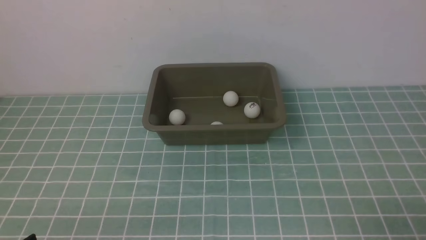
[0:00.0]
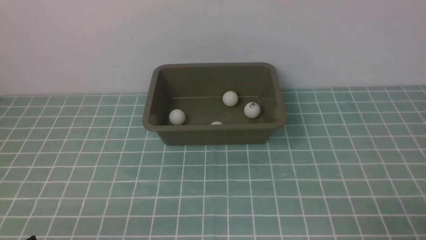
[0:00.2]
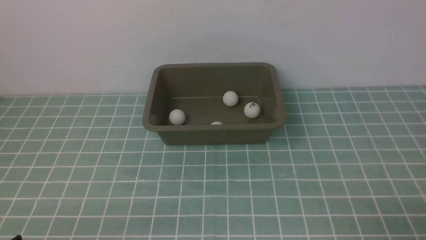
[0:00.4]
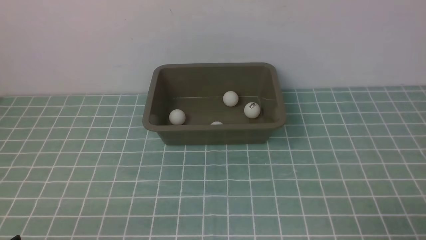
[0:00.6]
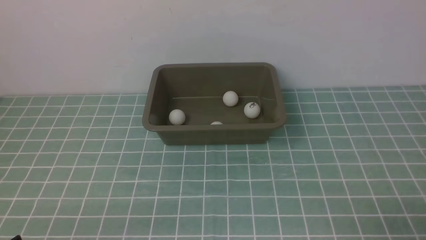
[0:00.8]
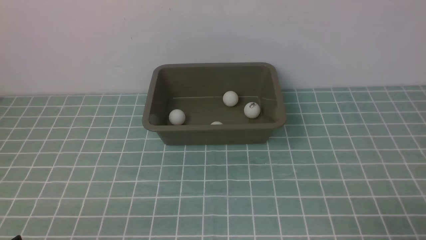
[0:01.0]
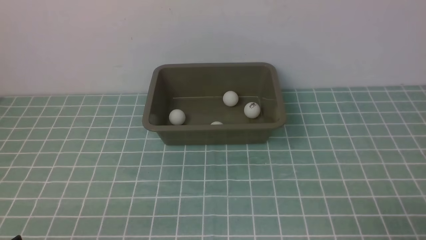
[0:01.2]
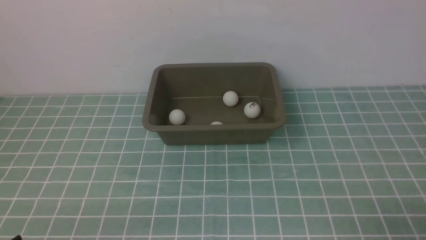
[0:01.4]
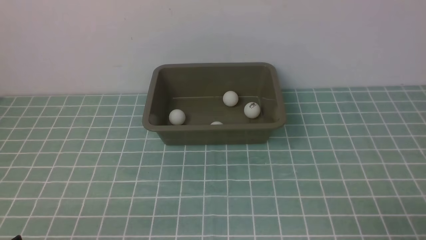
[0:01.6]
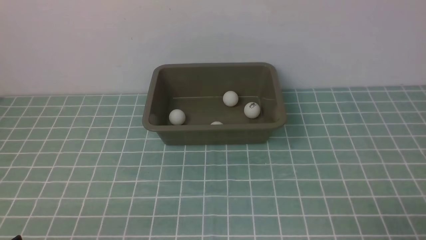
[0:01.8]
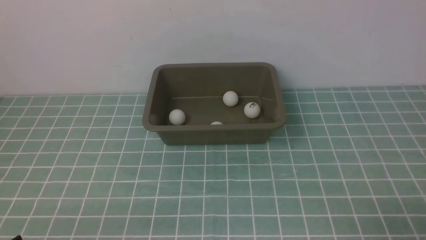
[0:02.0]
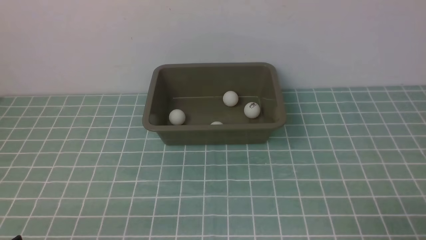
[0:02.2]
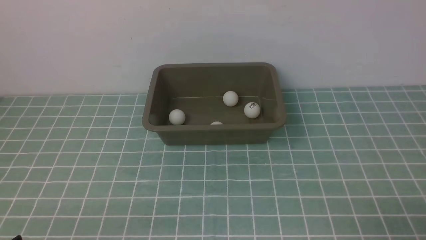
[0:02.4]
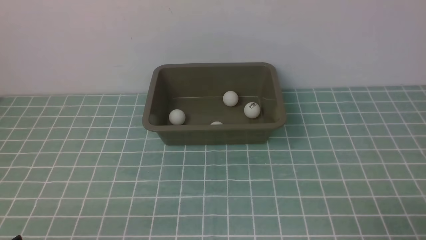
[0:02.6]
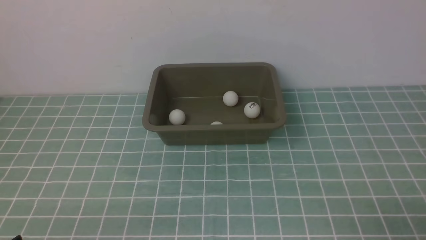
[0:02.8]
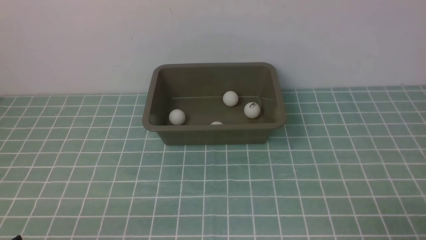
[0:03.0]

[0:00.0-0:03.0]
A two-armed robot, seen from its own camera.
0:00.0 to 0:03.0: Neither gripper changes place.

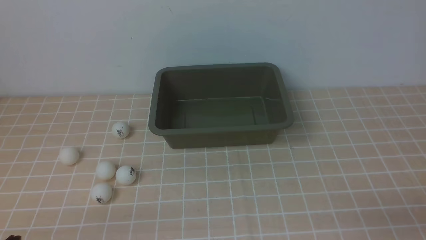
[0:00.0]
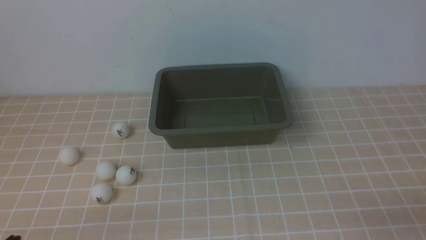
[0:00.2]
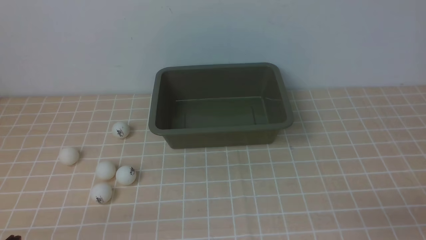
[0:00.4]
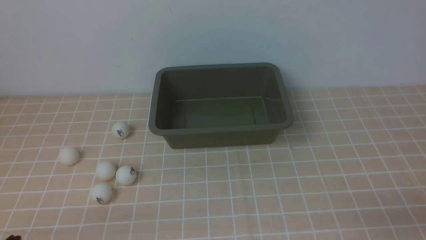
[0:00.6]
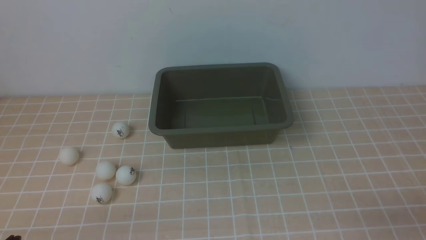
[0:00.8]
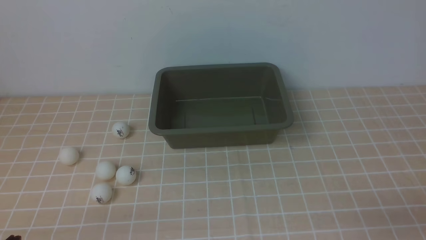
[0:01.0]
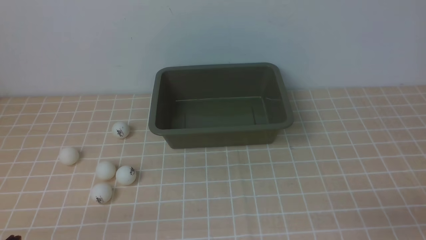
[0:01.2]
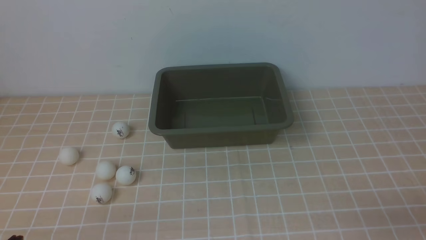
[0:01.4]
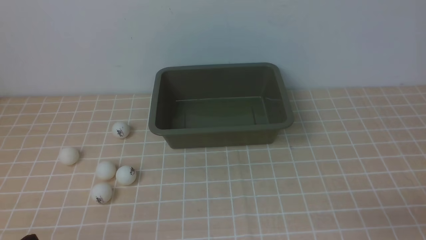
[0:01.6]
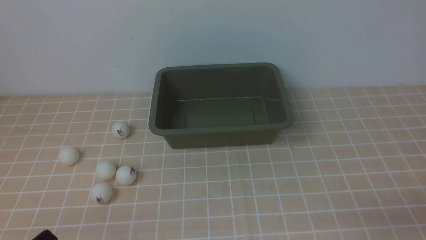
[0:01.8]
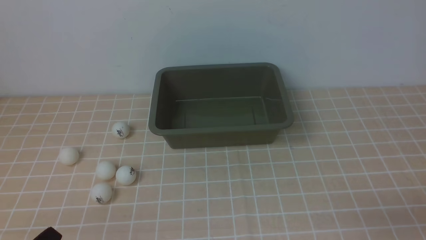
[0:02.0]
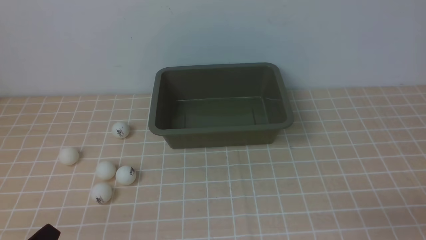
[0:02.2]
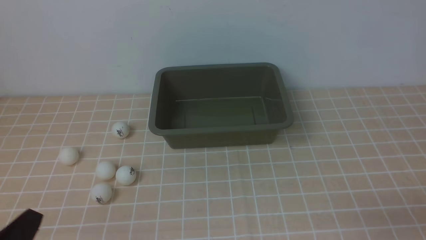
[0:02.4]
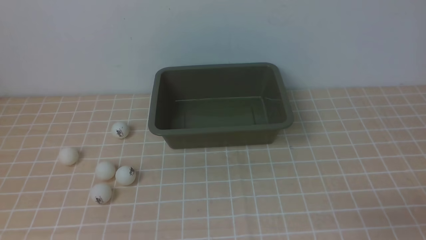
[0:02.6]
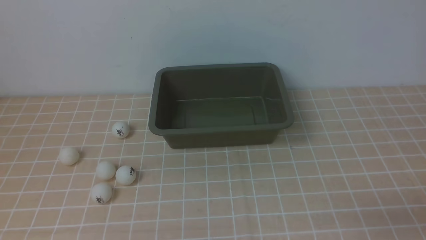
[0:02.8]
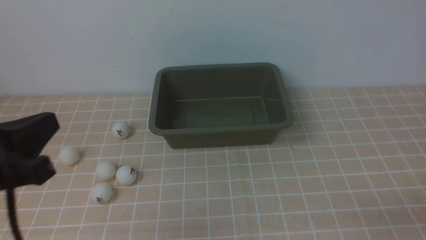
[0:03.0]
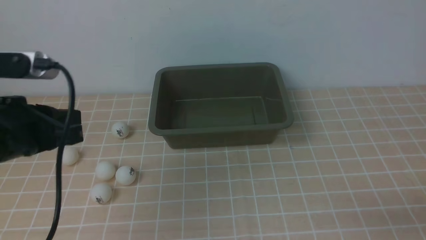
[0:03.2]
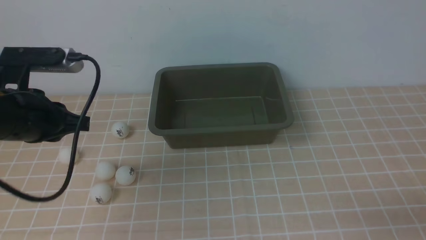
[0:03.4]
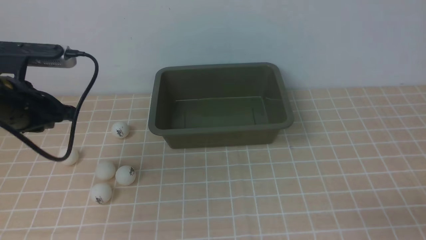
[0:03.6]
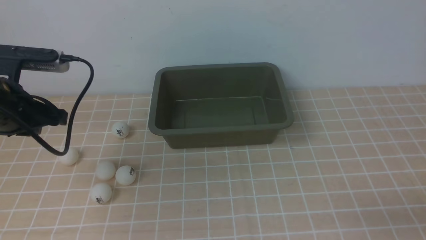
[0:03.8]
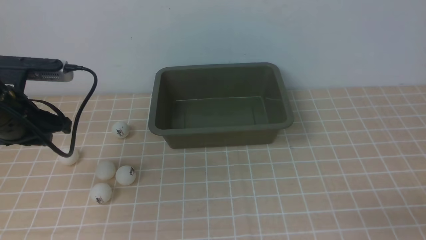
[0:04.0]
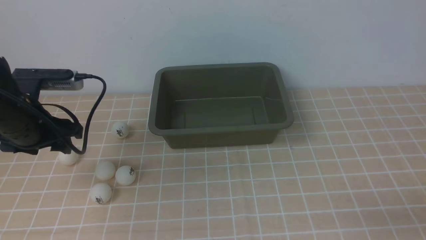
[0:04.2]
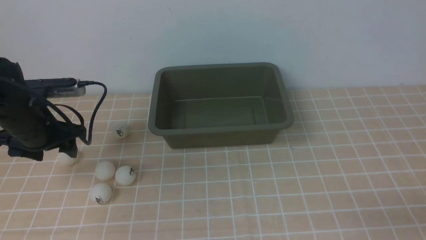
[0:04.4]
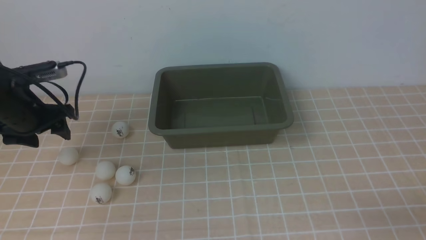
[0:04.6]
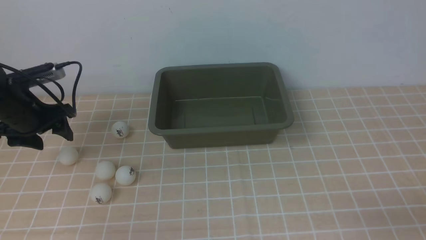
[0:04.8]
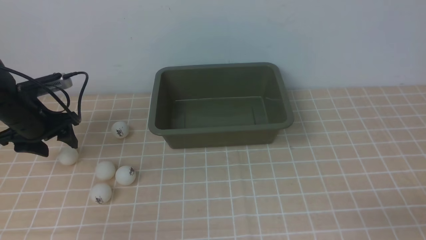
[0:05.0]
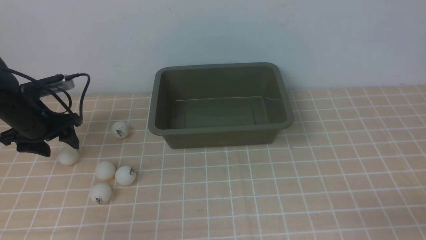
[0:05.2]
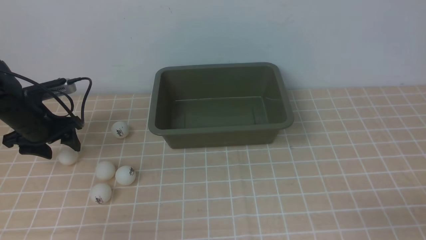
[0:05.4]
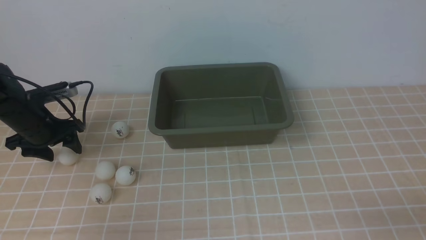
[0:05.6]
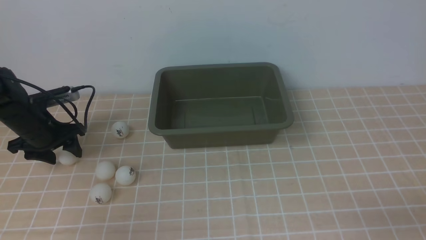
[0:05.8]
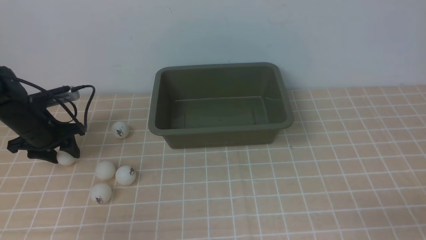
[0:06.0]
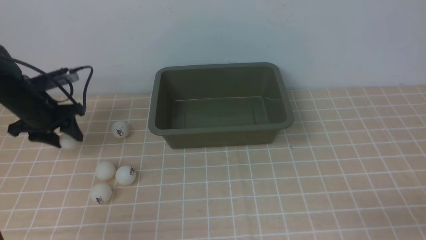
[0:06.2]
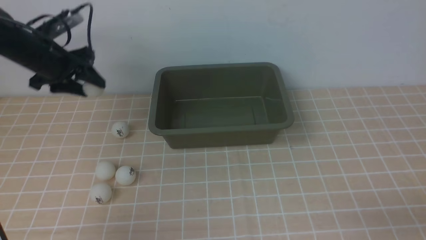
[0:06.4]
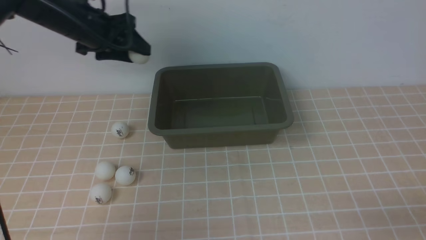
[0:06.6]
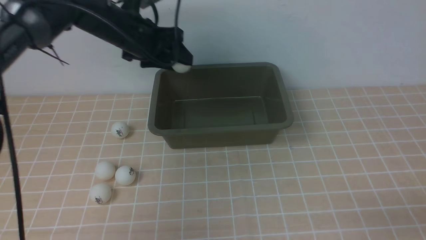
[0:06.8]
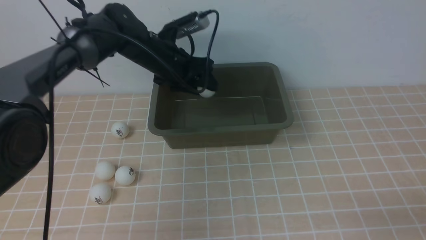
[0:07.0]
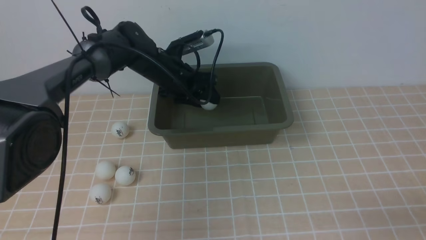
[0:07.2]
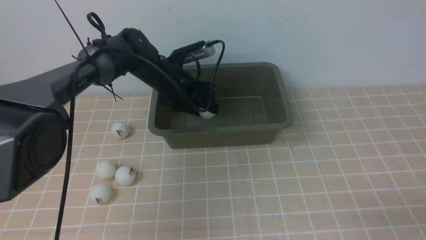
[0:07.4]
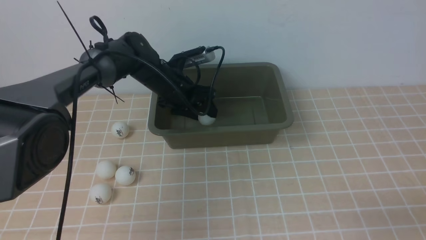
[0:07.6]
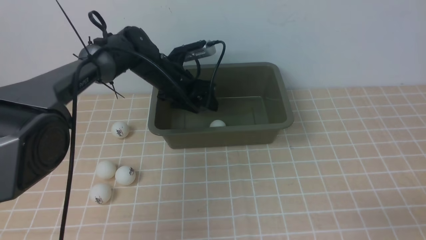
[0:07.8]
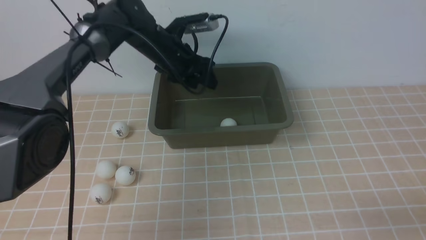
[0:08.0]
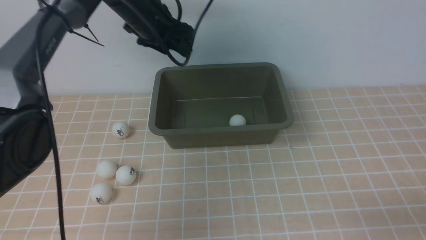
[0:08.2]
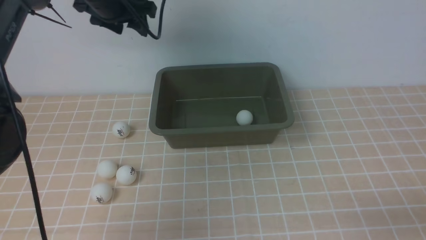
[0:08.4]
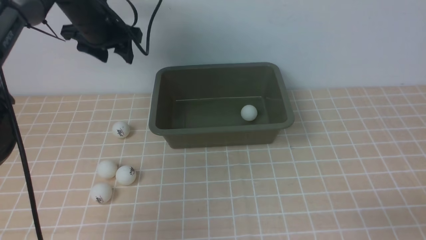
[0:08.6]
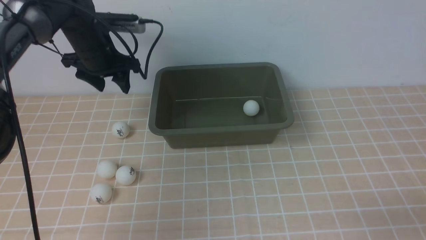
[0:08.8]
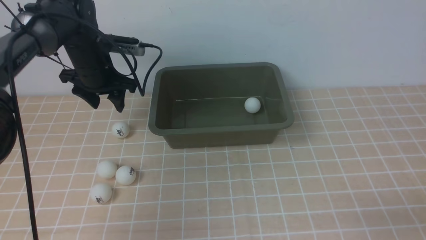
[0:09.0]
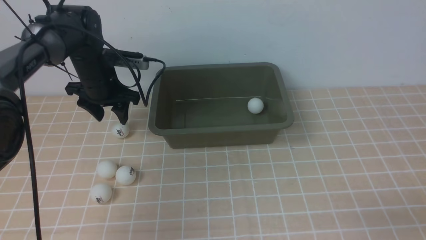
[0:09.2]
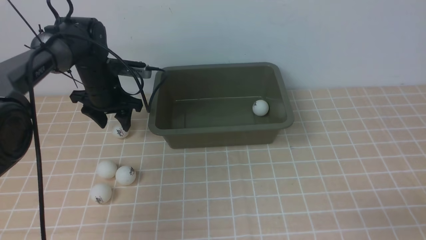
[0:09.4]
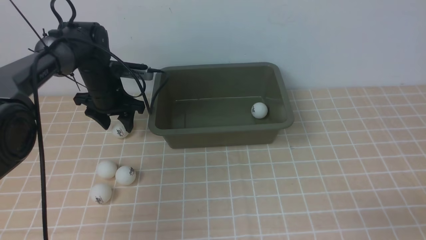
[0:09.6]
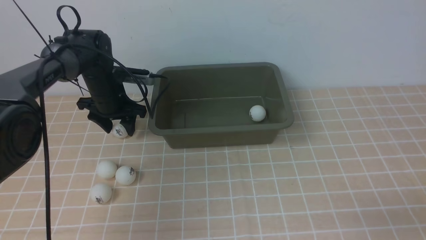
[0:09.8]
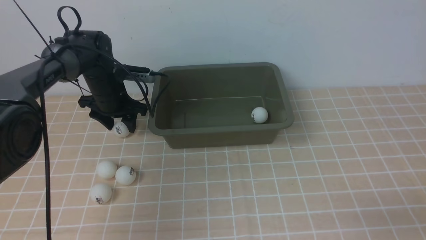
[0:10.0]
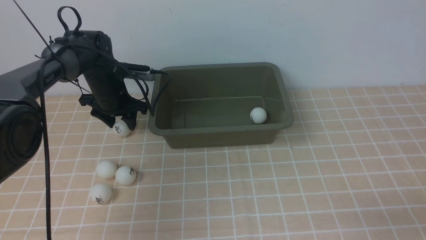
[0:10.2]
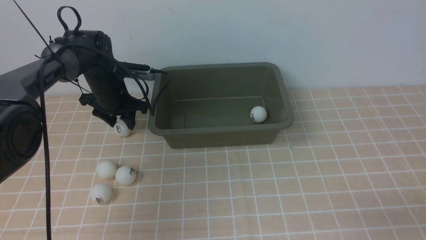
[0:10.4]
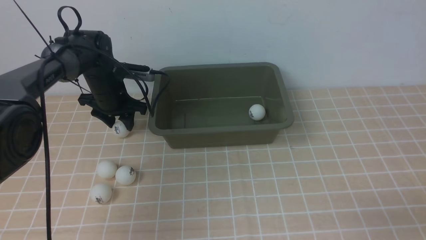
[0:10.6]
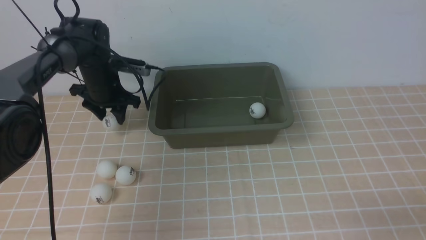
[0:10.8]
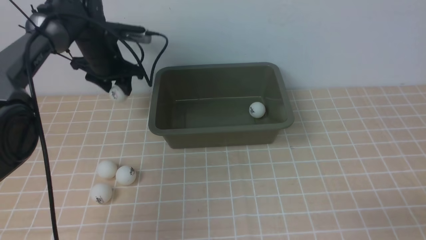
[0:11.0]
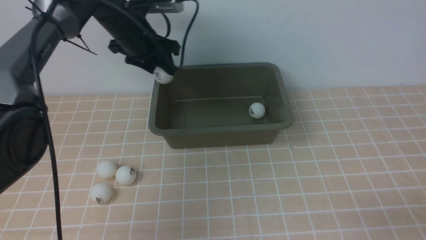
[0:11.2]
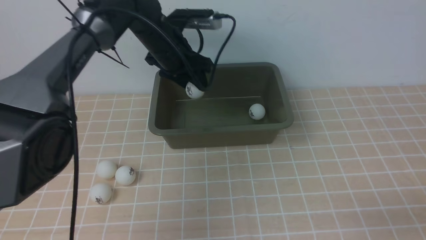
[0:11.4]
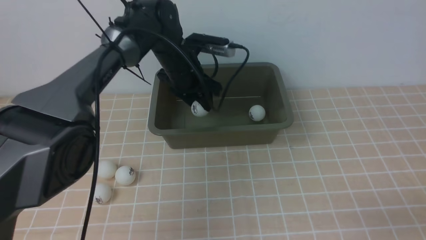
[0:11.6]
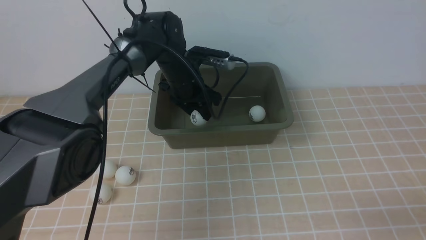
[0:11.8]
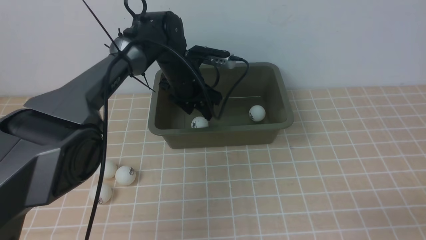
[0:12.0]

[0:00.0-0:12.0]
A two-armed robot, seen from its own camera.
Step, 0:00.0 to 0:06.4: use the left arm to clamp the table tennis ball closest to it.
Step, 0:06.8 to 0:07.4: use the left arm to put the table tennis ball into the box.
Step, 0:07.6 to 0:10.6: use the left arm to clamp the table tennis ball closest to it.
0:01.6 to 0:03.0: The left gripper heads upward, covering approximately 15 cm.
0:03.0 to 0:04.4: The left gripper goes approximately 20 cm forward, and opens its fingers.
0:04.4 to 0:06.0: The left gripper heads downward, forward and to the left, covering some 10 cm.
0:06.0 to 0:07.6: The left gripper heads to the right, covering some 25 cm.
0:07.6 to 0:09.0: The left gripper is displaced to the left and upward by about 15 cm.
0:09.0 to 0:10.4: The left gripper shifts some 10 cm downward.
0:10.4 to 0:12.0: The left gripper travels to the right by roughly 15 cm.

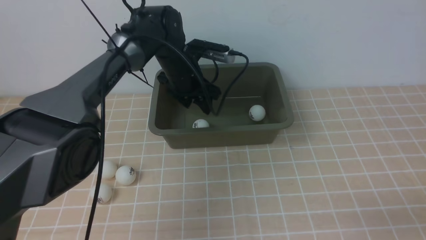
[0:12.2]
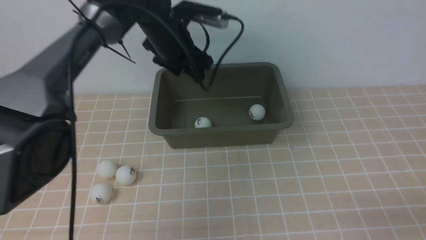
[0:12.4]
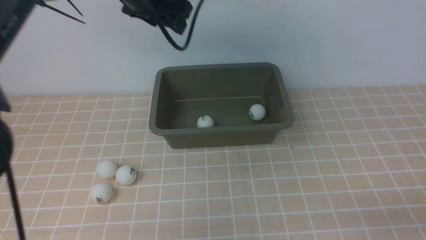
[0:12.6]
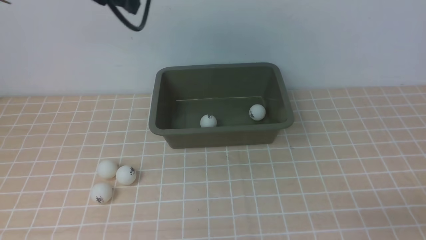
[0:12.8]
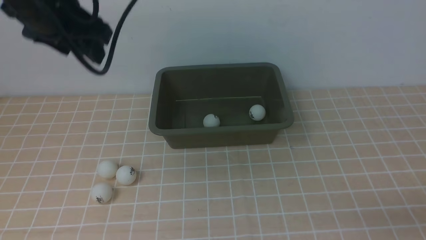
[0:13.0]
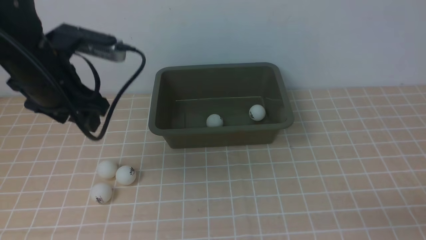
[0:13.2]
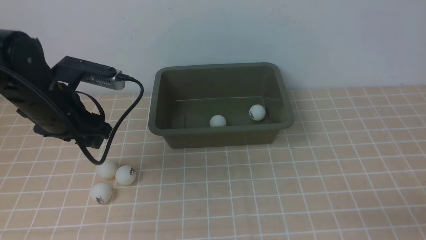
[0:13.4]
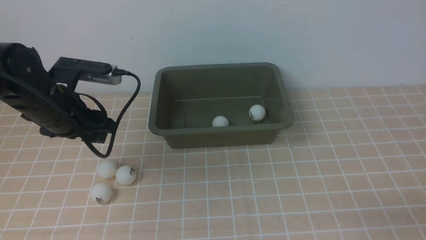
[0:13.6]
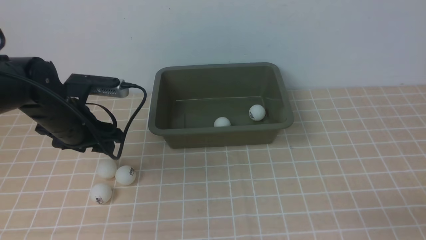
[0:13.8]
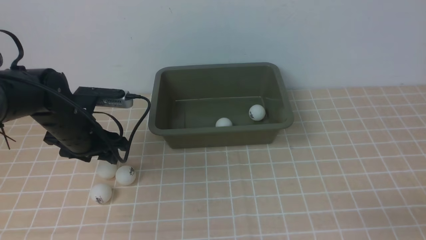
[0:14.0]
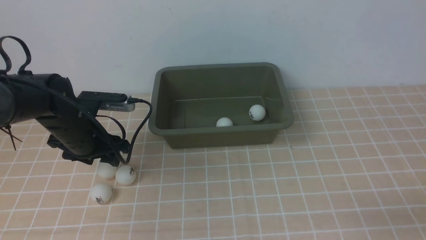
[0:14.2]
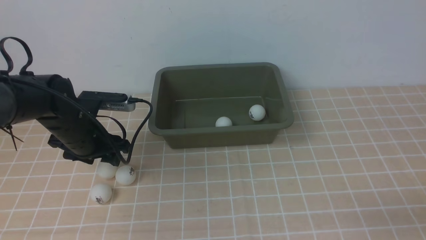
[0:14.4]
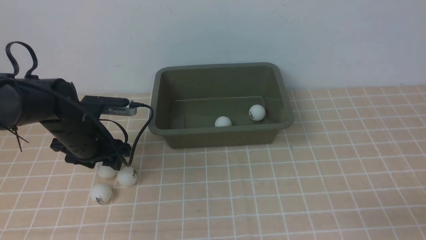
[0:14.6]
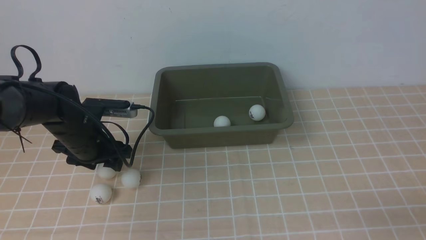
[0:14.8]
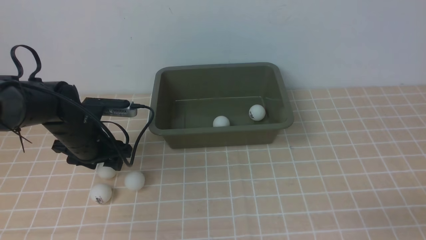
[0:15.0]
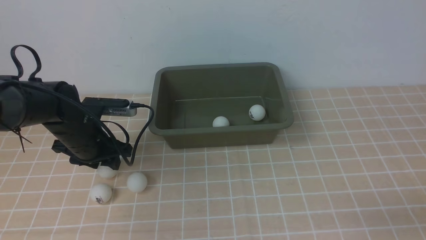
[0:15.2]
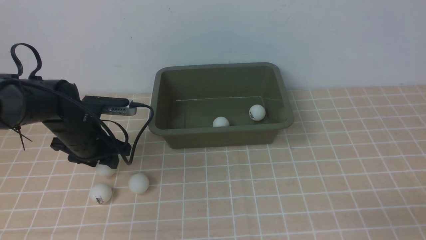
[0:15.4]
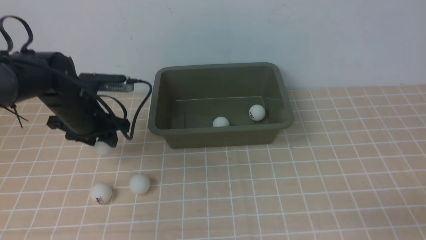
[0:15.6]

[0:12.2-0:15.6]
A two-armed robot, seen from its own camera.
0:12.2 to 0:13.8: The left gripper travels to the left and backward by some 20 cm, and reaches about 20 cm upward, then returns.
0:13.8 to 0:15.6: The left gripper changes place by about 5 cm.
